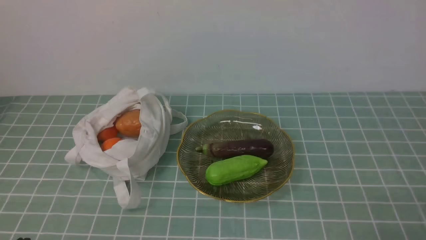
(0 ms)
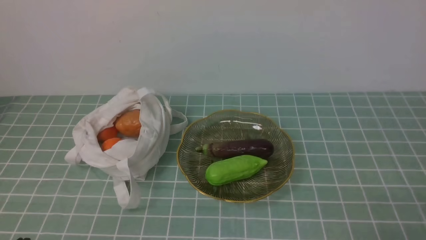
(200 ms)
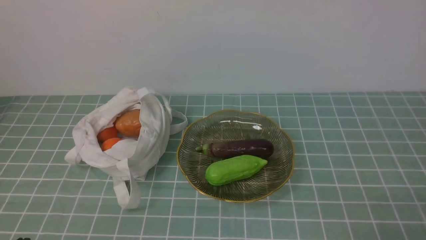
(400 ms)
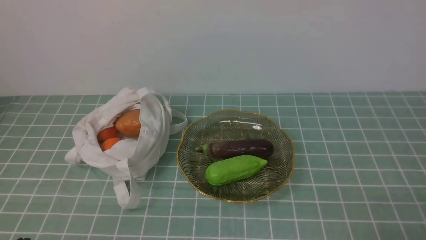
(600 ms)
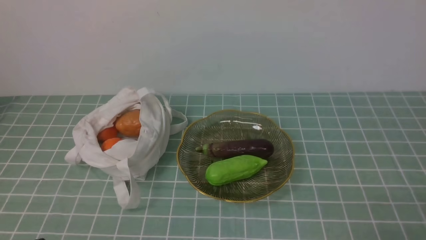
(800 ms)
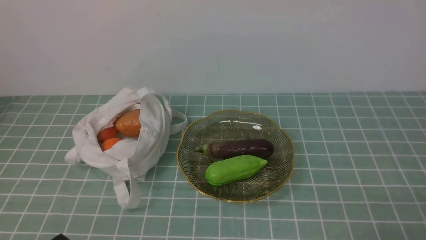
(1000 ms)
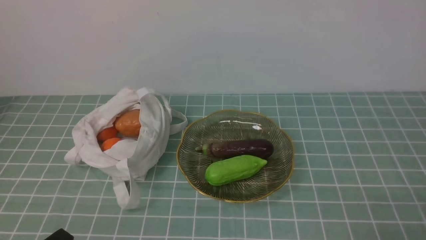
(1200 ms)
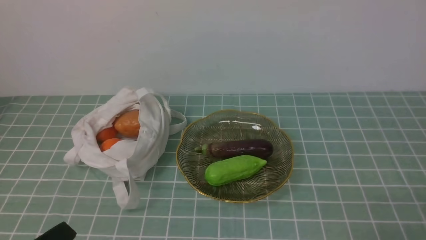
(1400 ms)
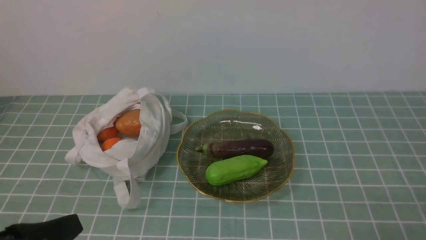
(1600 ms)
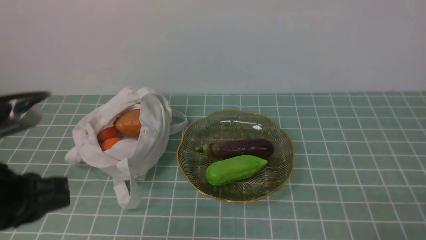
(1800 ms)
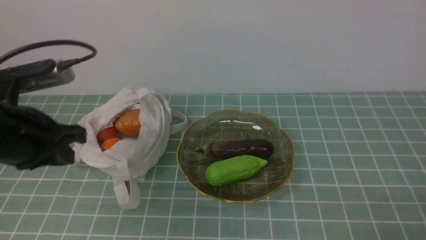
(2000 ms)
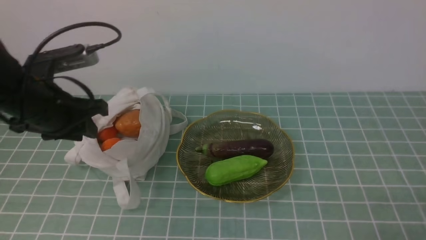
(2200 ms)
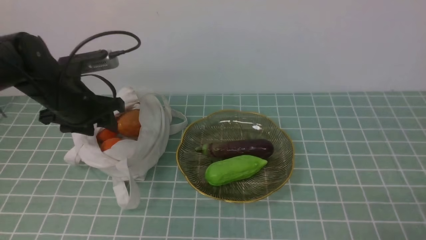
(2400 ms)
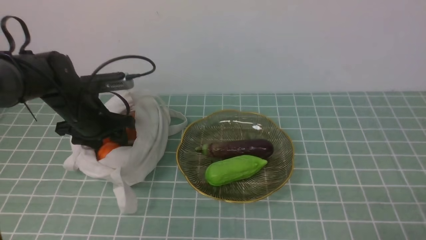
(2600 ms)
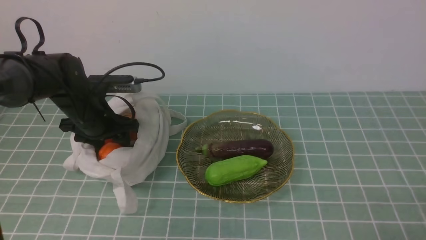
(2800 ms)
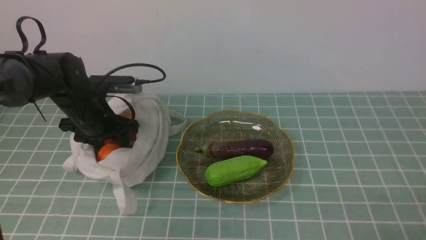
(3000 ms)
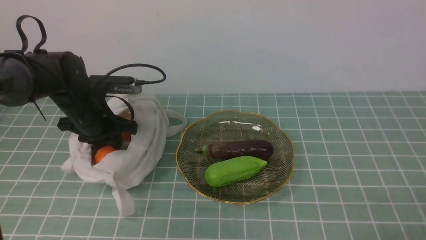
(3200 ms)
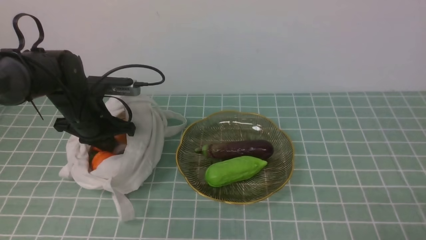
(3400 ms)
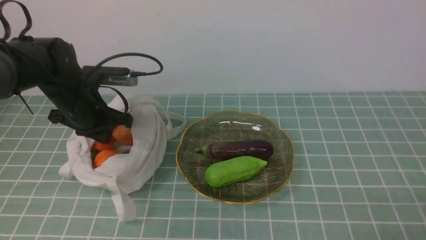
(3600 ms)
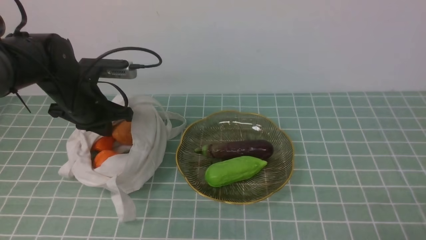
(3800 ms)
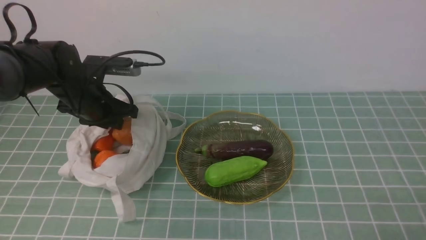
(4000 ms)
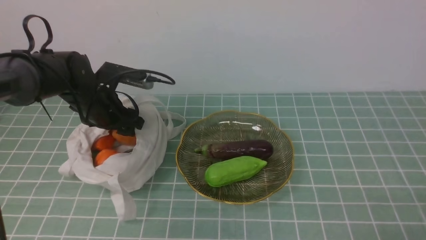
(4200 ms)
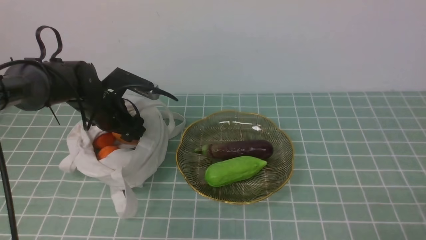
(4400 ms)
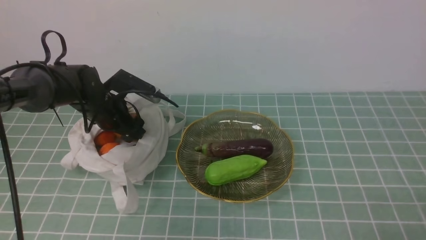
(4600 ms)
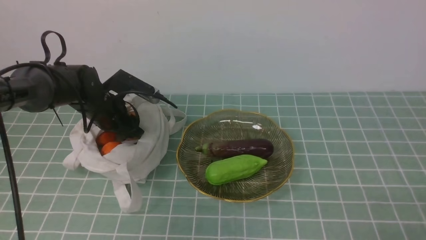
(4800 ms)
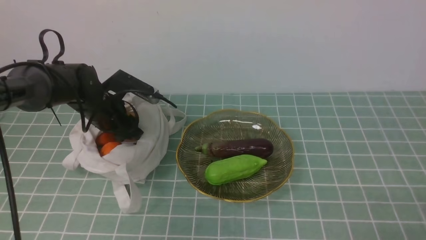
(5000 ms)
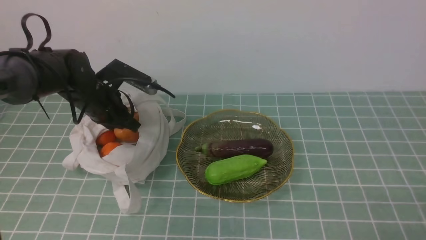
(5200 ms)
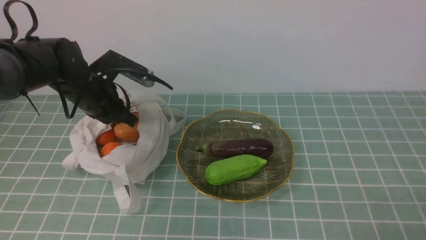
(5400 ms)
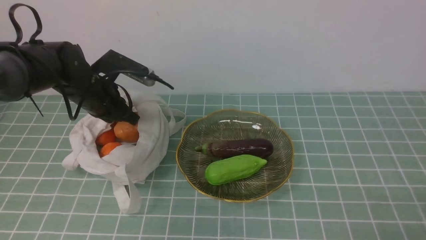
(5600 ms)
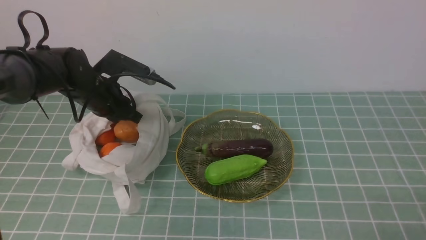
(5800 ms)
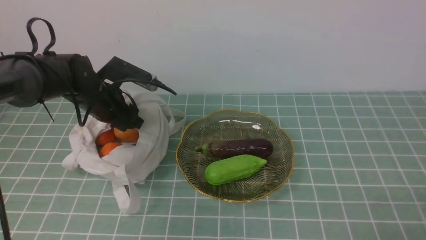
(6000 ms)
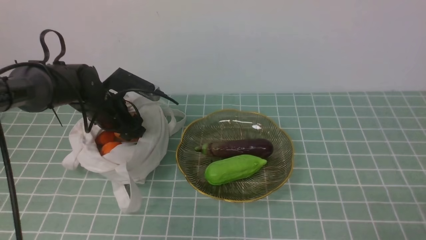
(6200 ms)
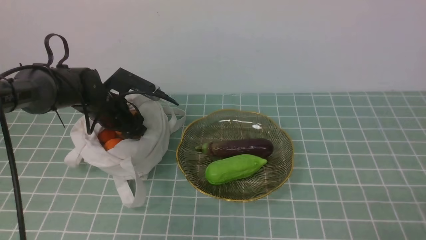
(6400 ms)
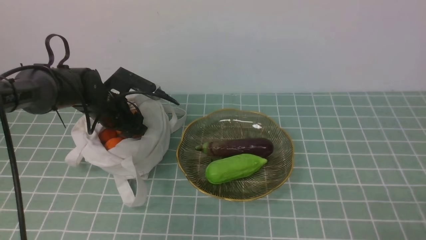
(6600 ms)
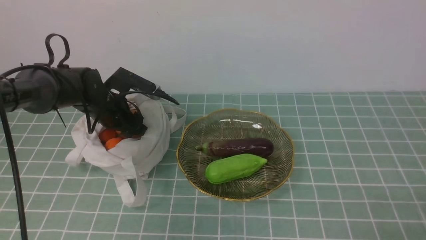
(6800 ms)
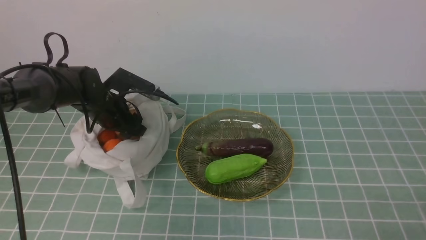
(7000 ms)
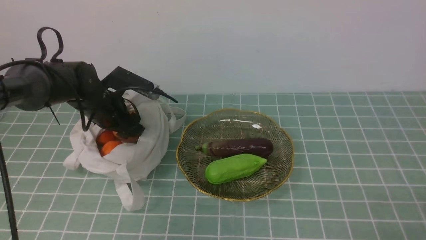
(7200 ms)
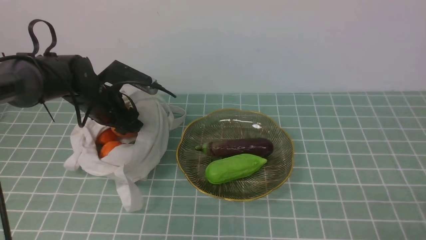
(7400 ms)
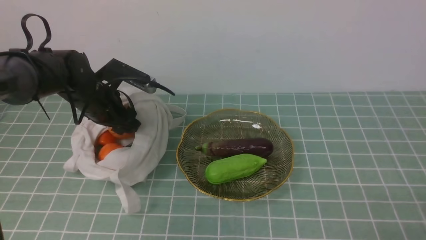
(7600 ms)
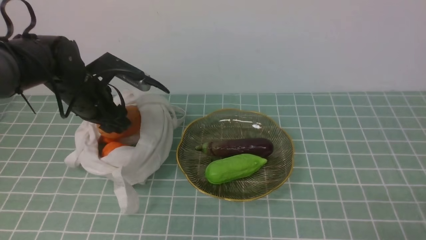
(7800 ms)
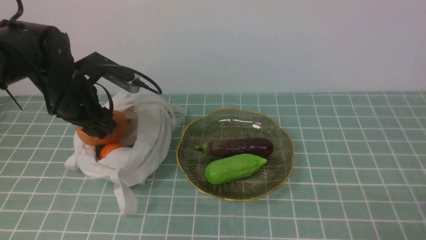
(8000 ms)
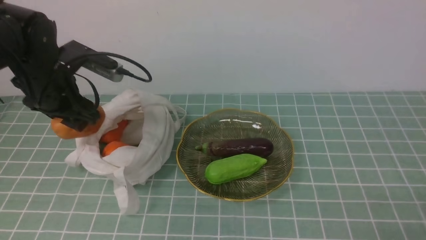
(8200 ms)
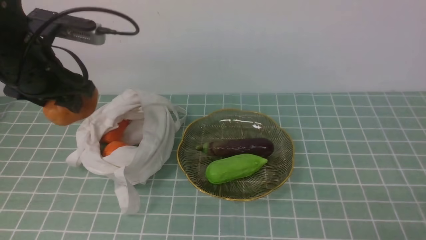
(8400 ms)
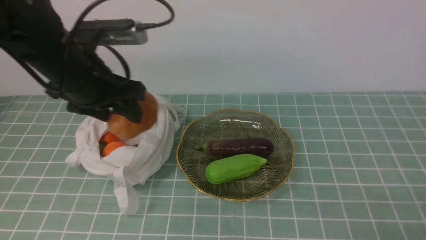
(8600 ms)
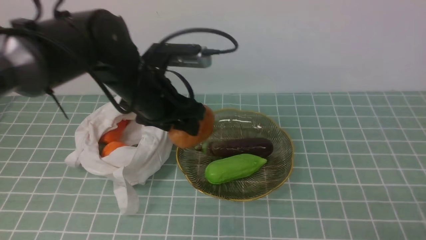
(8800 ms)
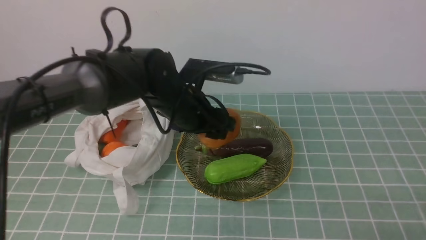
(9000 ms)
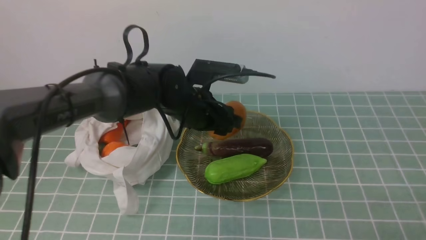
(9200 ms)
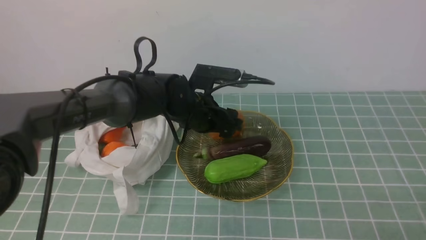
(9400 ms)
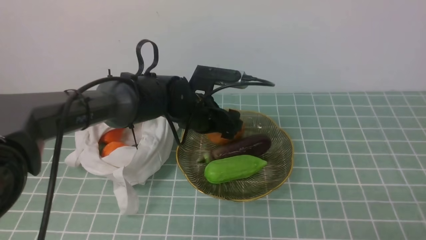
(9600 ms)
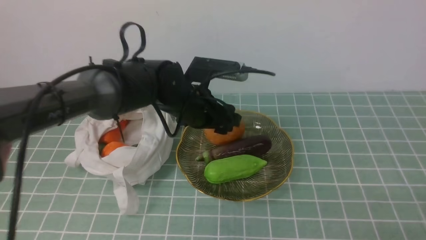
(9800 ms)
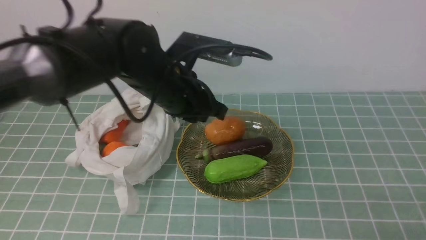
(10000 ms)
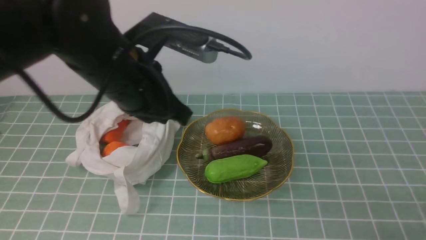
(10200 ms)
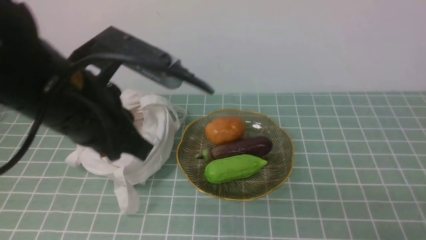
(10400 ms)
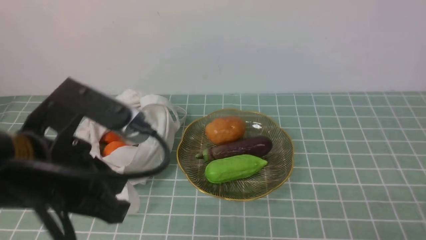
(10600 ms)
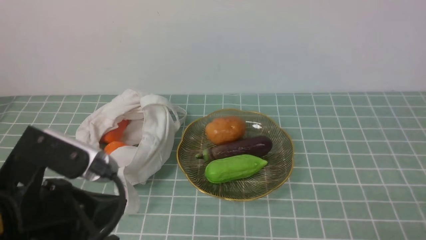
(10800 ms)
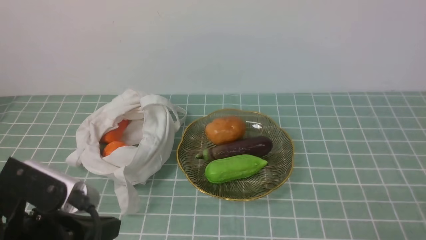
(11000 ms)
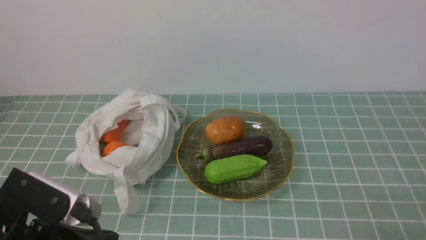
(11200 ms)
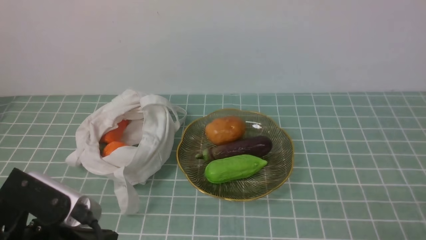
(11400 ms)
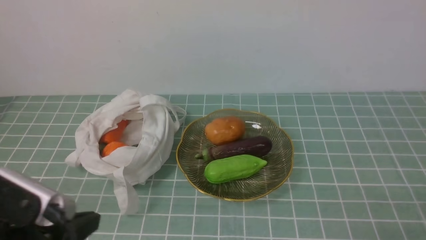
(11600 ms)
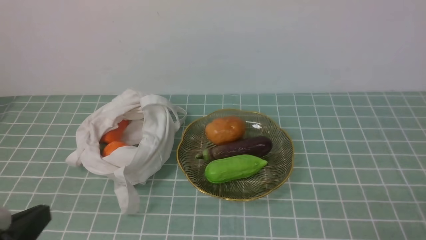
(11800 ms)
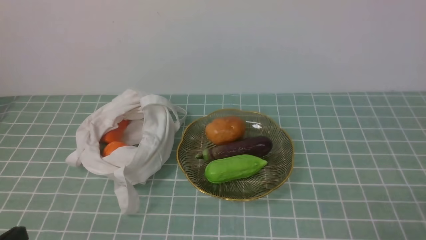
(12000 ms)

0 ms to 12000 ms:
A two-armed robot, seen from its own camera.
Task of the whole recording: take vegetables from cloth bag on blue coffee tablecloth place on plate.
Step, 0 ms to 6800 ms: Grasp the potato with left gripper.
Step, 7000 ms to 9600 ms: Place the potato on the plate with left gripper.
1600 ms to 3000 ms: The left gripper moves forward, approximately 35 cm, and opens its fingers.
3000 ms to 4400 ms: The left gripper closes, then reopens.
4400 ms to 6000 ms: The left gripper closes up.
6000 ms to 7600 ms: There are only small adjustments of the grippers.
7600 ms to 9000 ms: The left gripper shifts some 15 cm to the right.
9000 ms to 10400 ms: The left gripper is displaced backward and upward by roughly 15 cm, and closes.
10400 ms to 12000 ms: The left gripper is displaced backward, to the left and downward by some 25 cm.

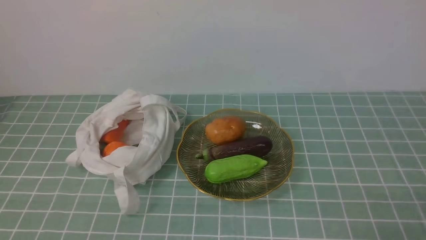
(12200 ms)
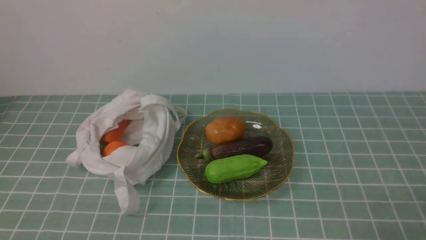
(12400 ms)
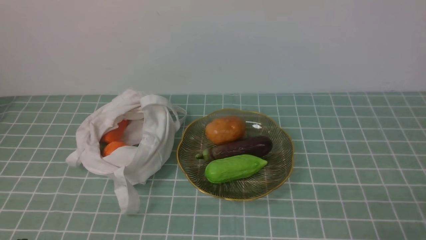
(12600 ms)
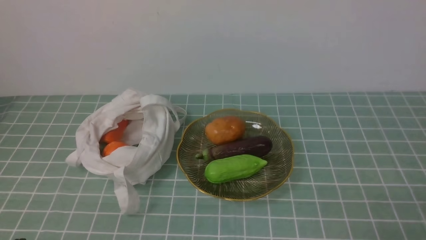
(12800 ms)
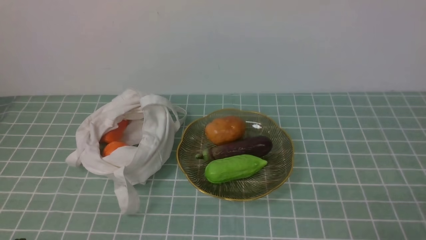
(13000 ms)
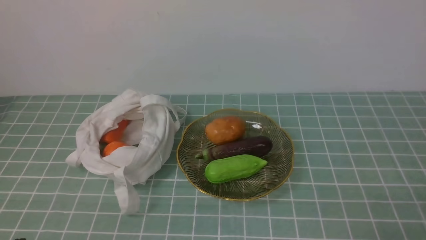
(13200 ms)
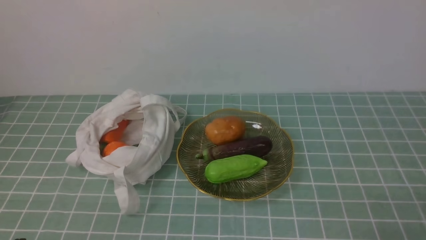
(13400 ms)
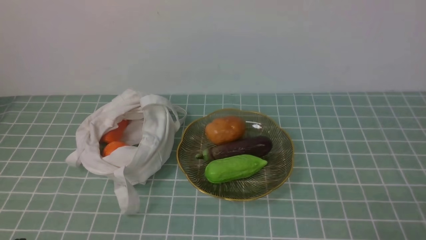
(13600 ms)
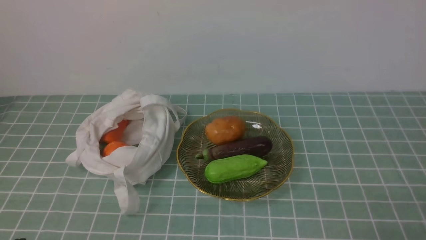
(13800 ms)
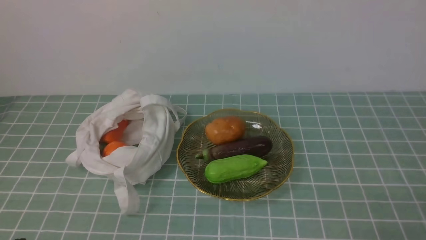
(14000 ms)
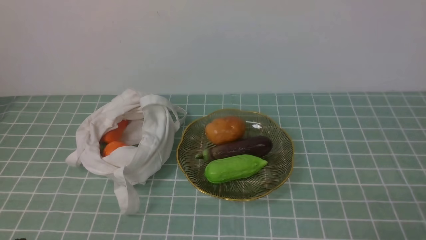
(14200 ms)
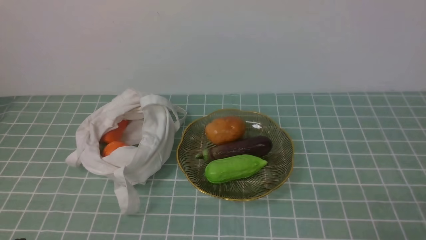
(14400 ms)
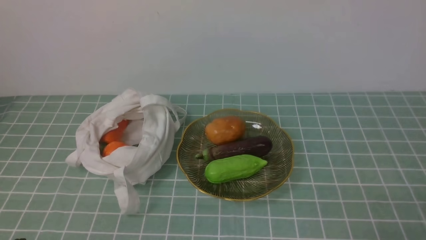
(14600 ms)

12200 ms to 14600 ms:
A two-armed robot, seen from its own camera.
Task of the whole recording: take vegetables from cloth bag on blue coffee tablecloth place on plate.
13400 ms to 14600 ms: The two grippers keep their place.

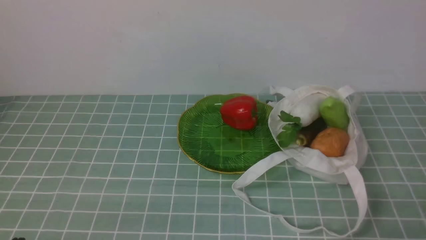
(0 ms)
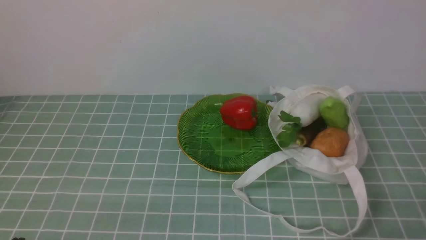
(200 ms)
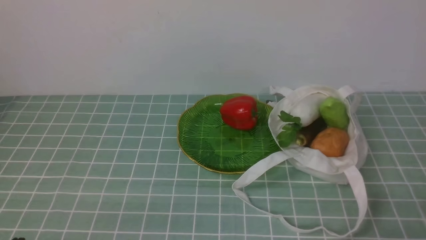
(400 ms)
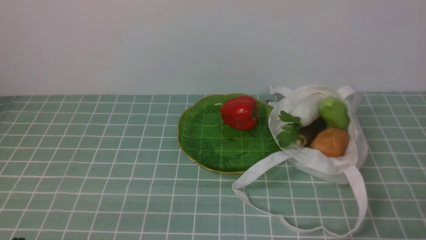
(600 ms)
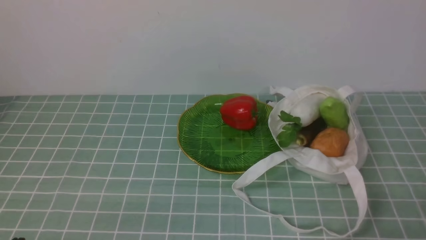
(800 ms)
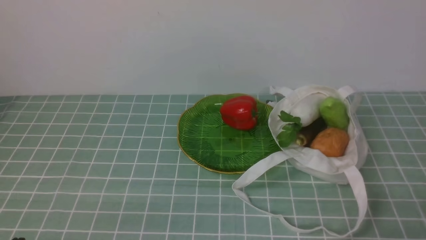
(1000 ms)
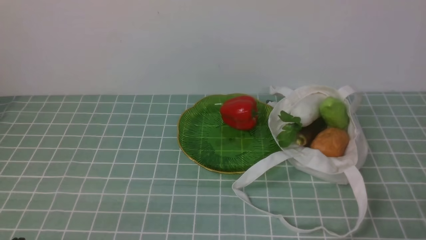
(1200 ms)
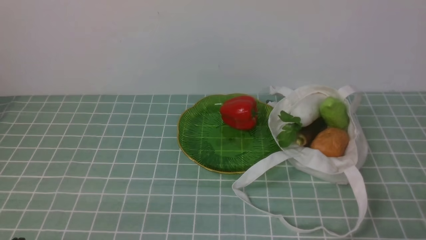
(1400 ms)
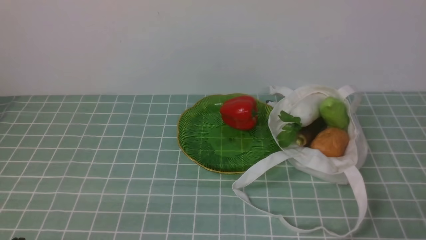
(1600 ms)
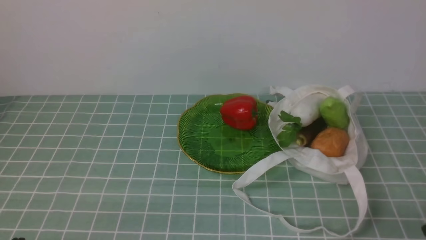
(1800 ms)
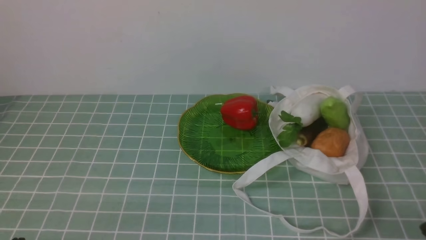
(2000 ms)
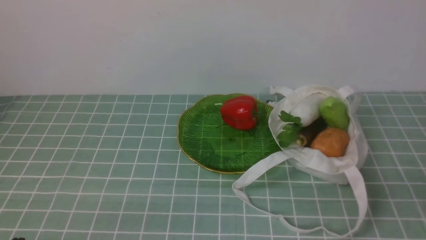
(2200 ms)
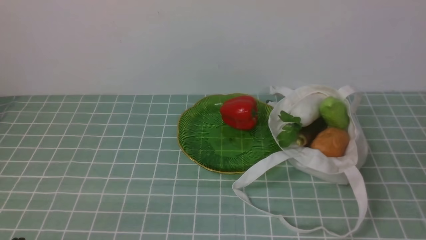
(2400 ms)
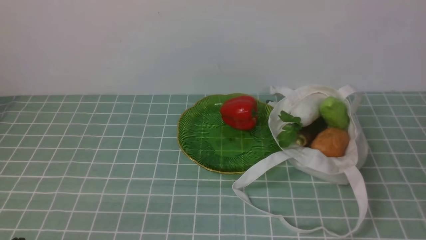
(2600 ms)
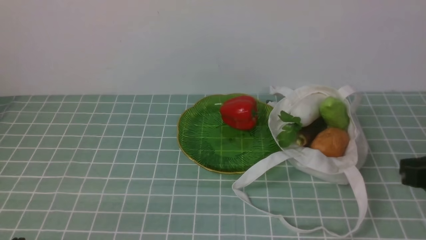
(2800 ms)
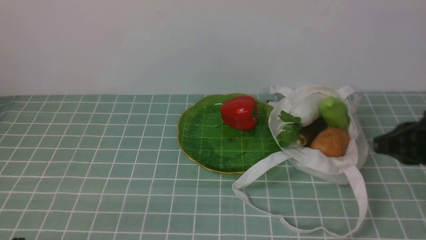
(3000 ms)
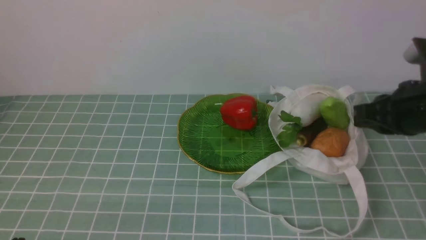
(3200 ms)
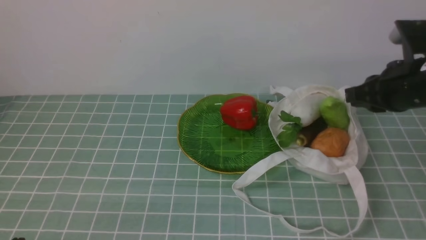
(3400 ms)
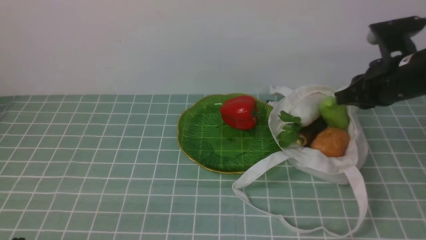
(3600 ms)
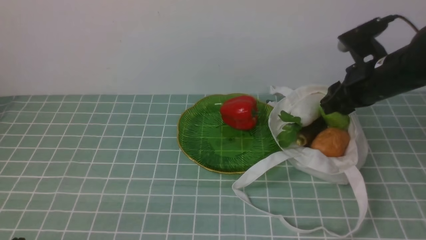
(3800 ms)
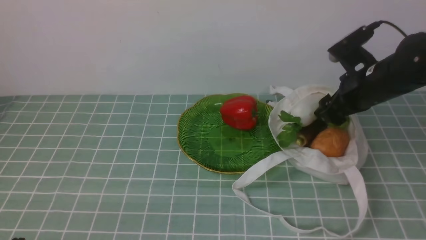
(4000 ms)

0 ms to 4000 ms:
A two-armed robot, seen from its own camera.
Task of the whole recording: take vegetables from cloth bag on blue coffee tablecloth place on plate.
0 ms to 1400 ms: Both grippers stay put.
2600 ms to 4000 ms: The right gripper is displaced forward by some 25 cm, and opens.
